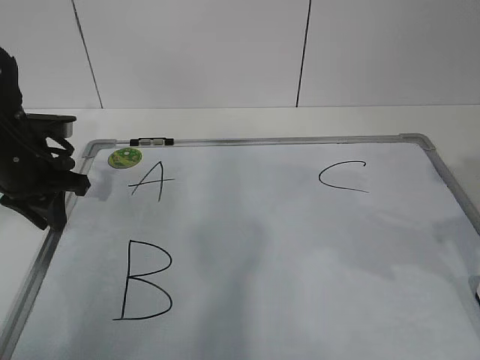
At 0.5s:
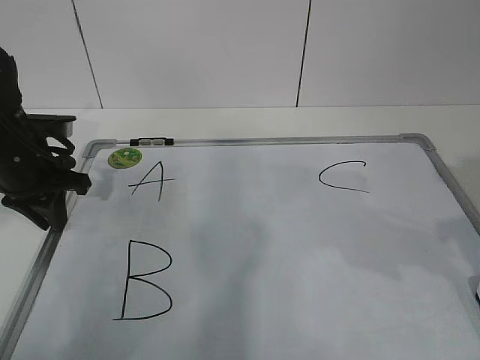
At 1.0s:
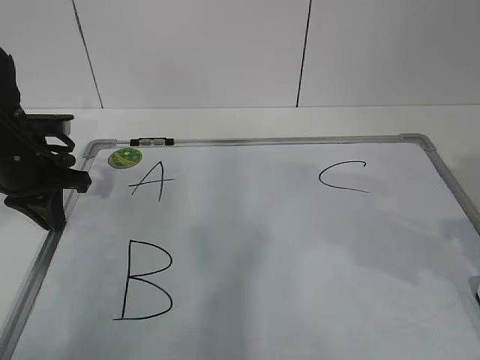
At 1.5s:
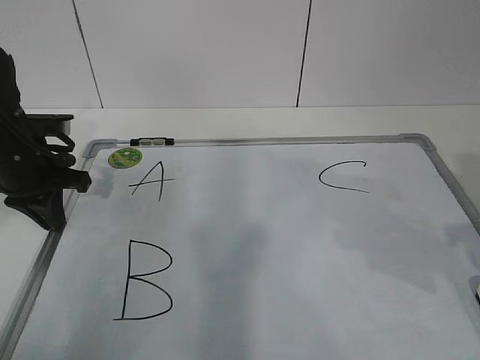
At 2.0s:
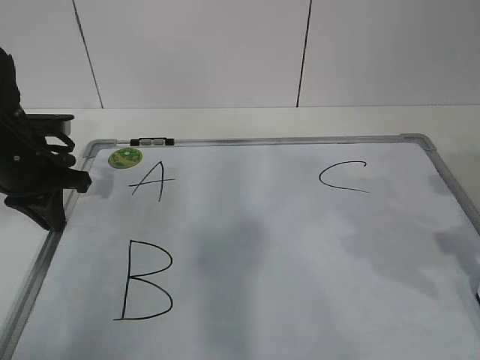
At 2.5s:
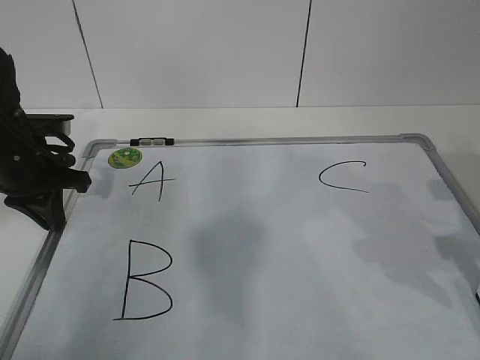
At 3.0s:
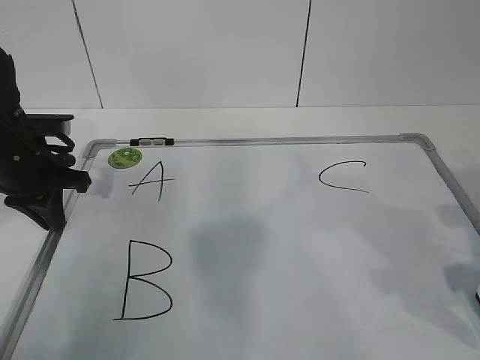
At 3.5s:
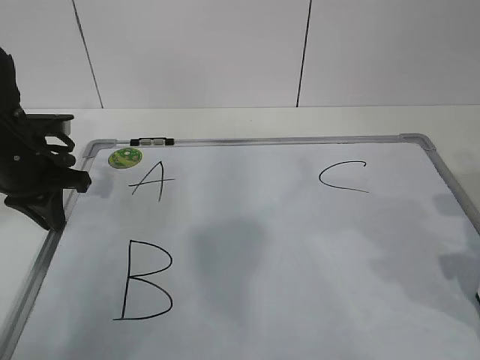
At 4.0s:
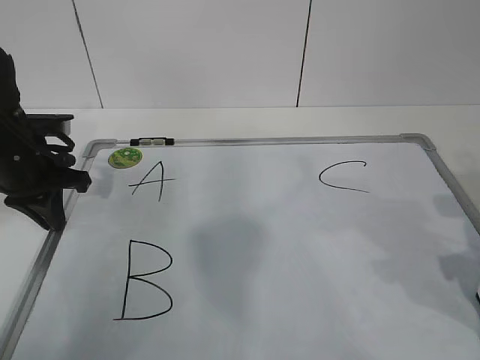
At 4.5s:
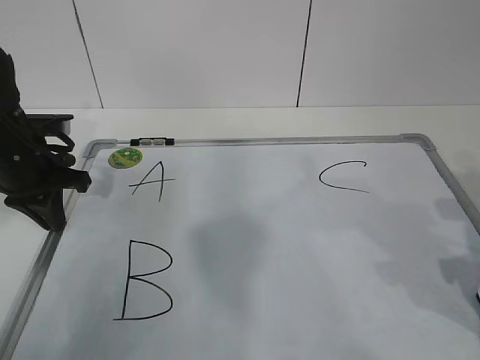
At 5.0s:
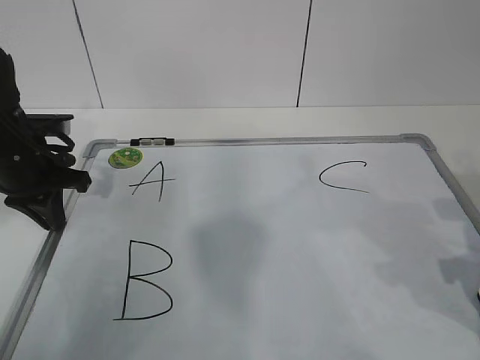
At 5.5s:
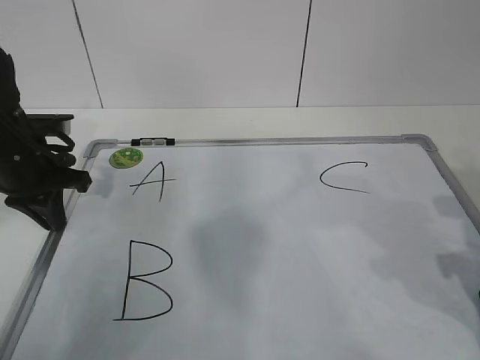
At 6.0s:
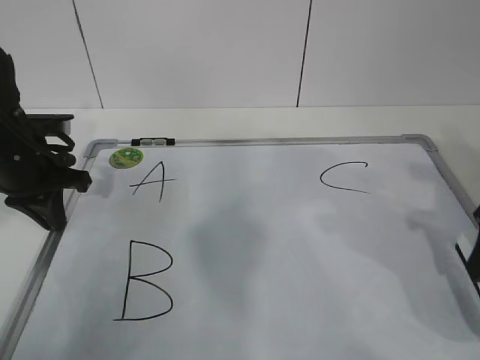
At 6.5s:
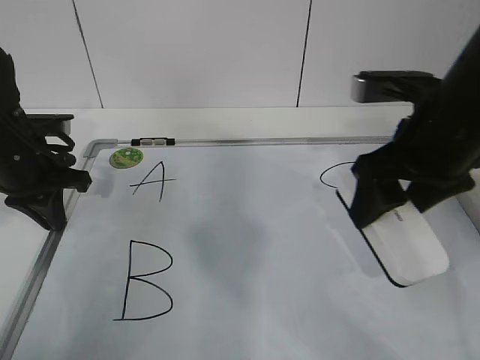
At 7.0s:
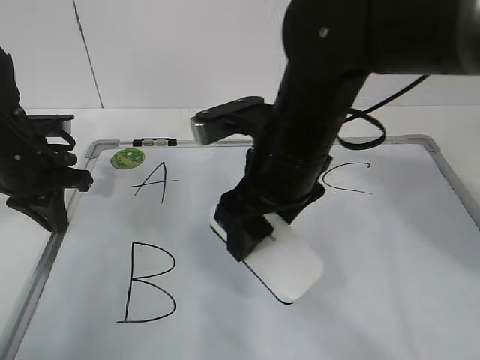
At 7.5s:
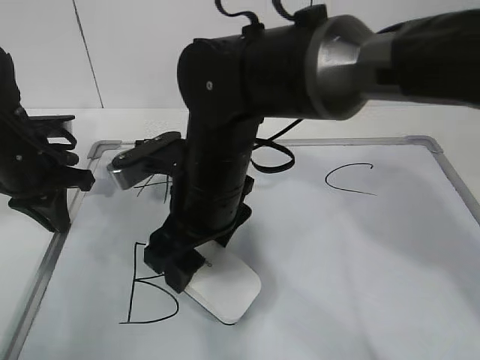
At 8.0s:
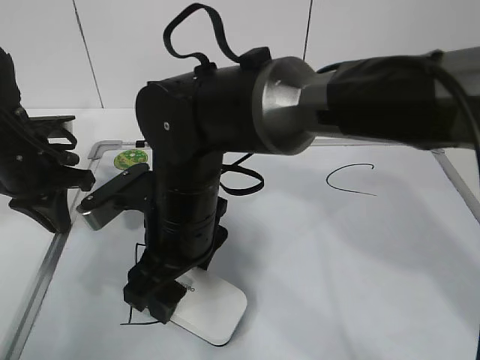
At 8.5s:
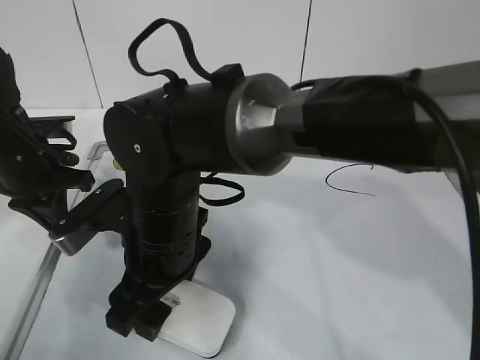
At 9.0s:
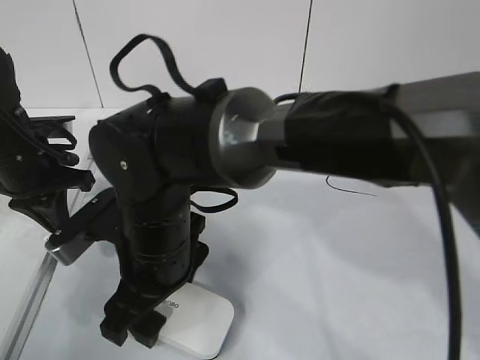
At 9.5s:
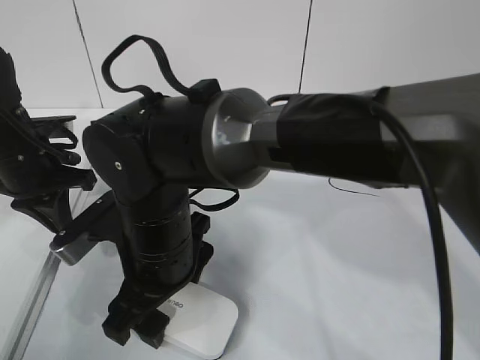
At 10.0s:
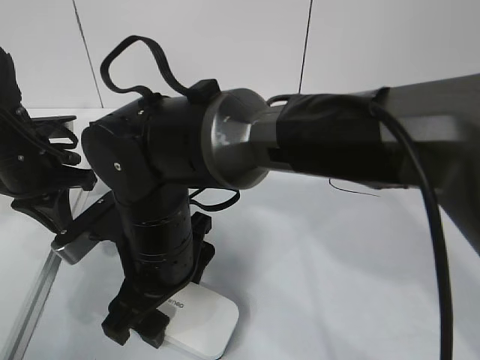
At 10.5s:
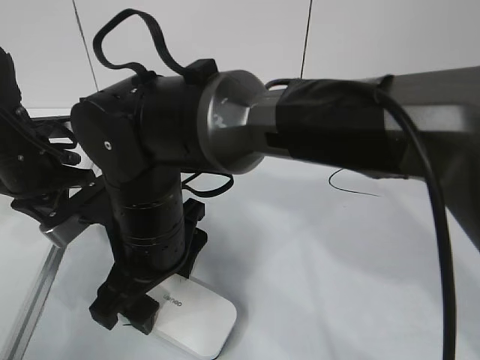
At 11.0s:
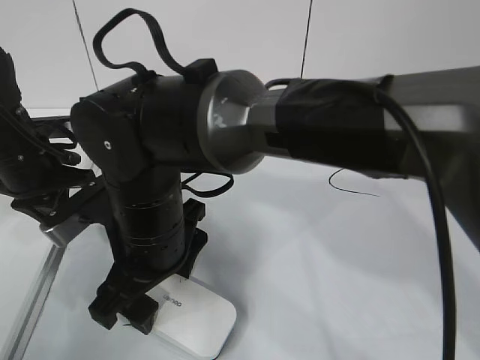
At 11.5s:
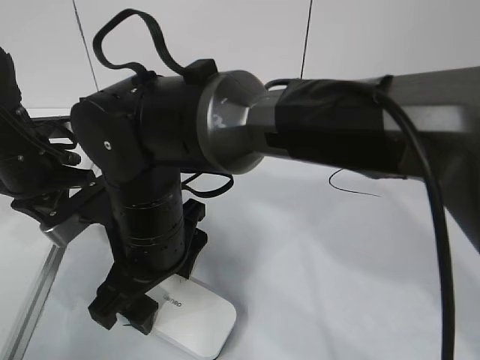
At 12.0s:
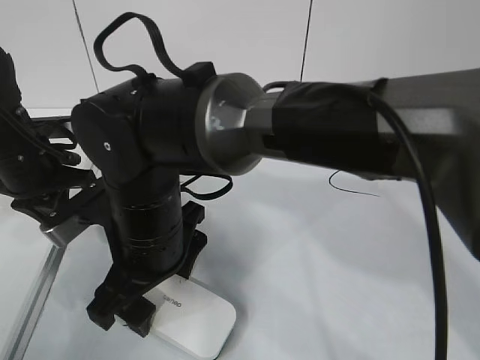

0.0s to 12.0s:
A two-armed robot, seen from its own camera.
Task of the whole recording: pick up the eraser on the blackboard and erase the letter "B".
Step, 0.5s to 3.5s: Grab the eraser with your right hand.
0.0s to 2.0s: The left gripper closes.
2.0s to 4.0s: The right gripper travels downward by about 5 cm.
4.0s to 6.0s: The right gripper closes its fingers.
6.0s to 8.0s: The right gripper shifts some 35 cm to the left.
8.0s to 10.0s: The right gripper opens its fingers.
10.0s to 12.0s: The grippers move only a little.

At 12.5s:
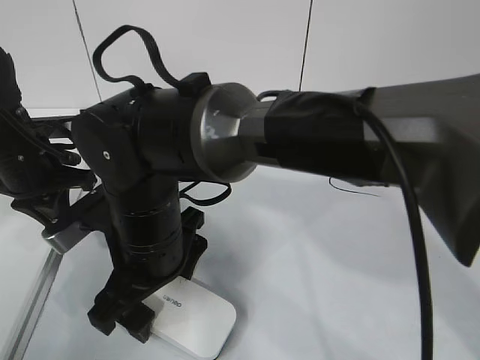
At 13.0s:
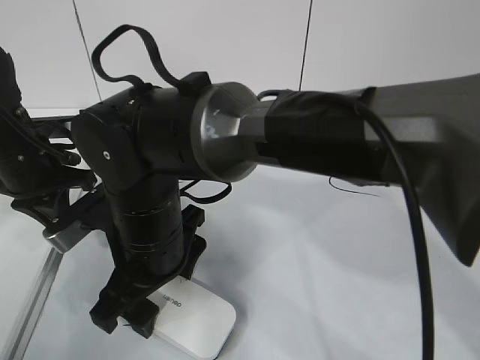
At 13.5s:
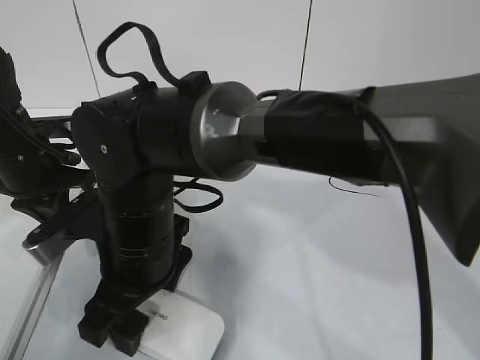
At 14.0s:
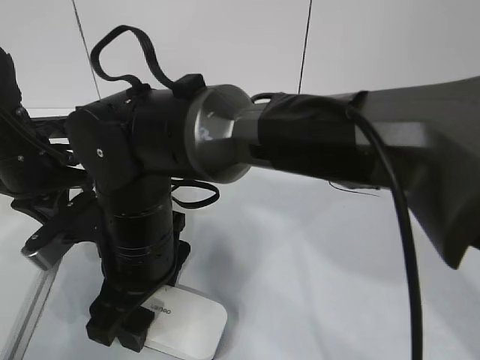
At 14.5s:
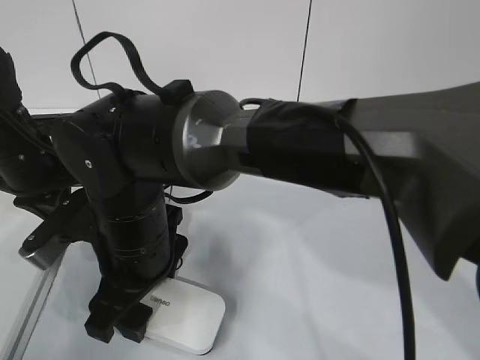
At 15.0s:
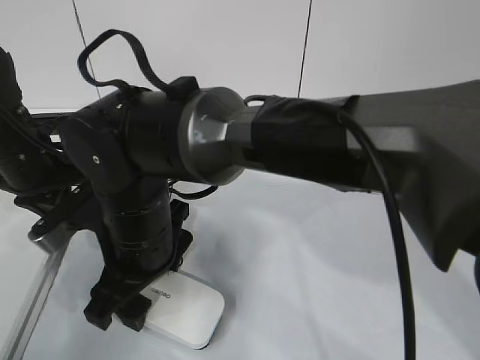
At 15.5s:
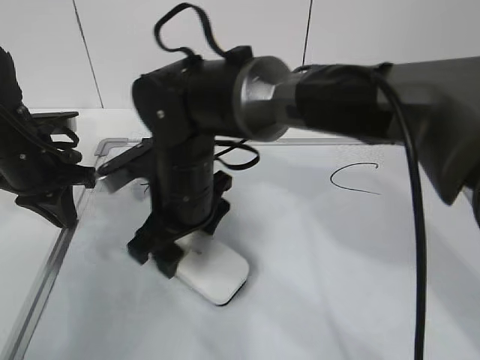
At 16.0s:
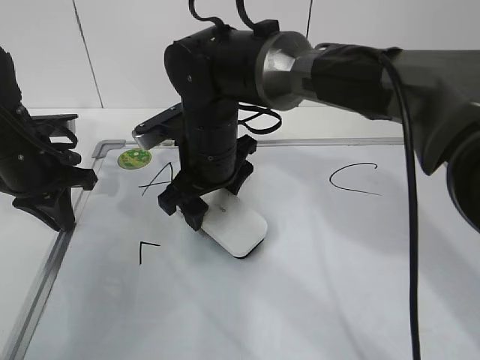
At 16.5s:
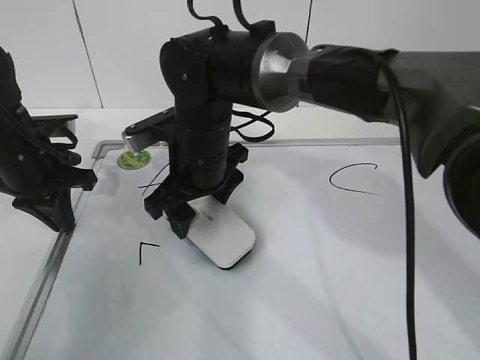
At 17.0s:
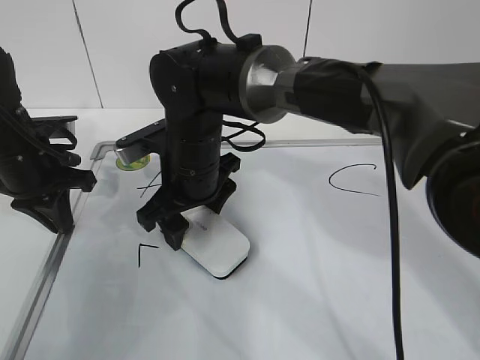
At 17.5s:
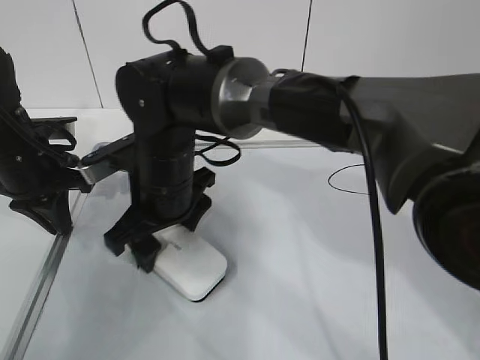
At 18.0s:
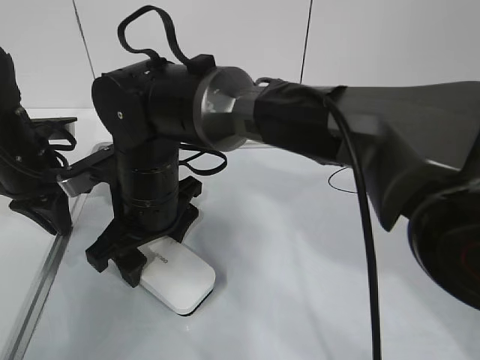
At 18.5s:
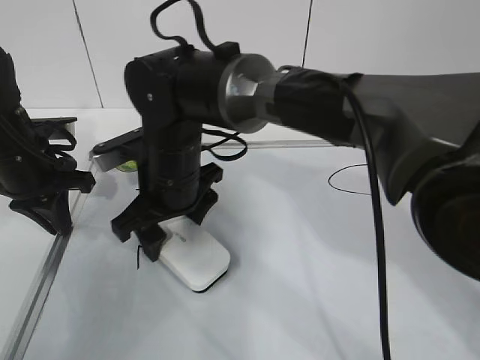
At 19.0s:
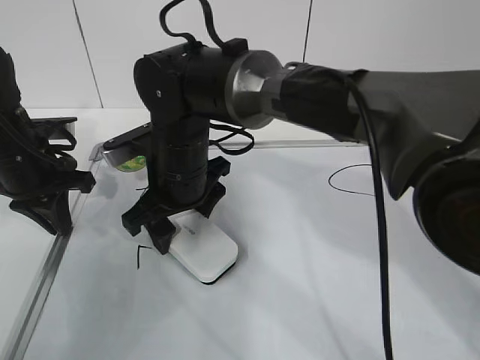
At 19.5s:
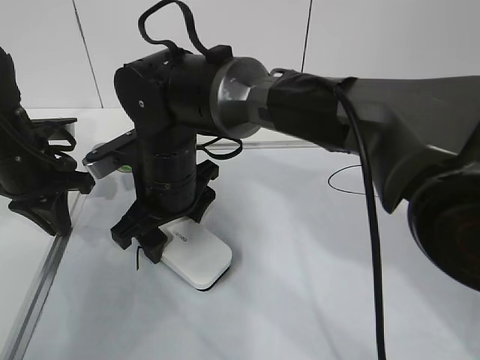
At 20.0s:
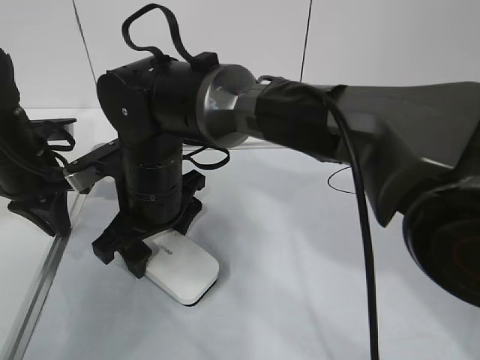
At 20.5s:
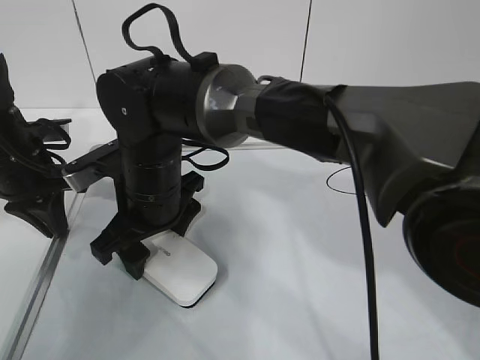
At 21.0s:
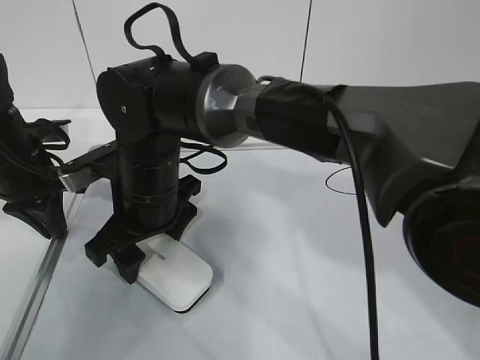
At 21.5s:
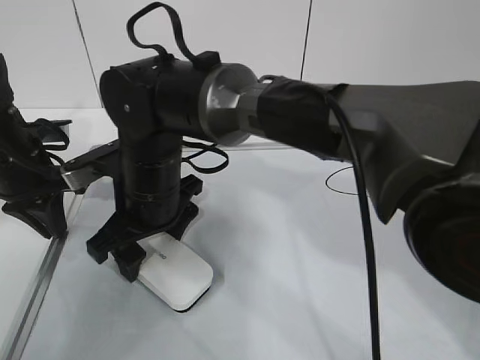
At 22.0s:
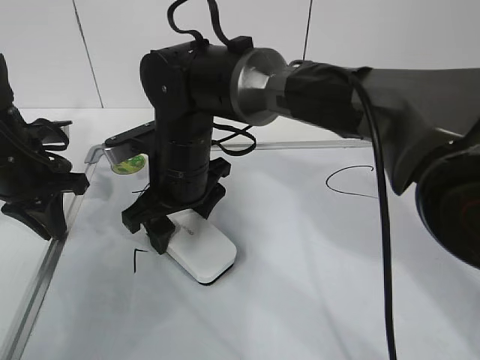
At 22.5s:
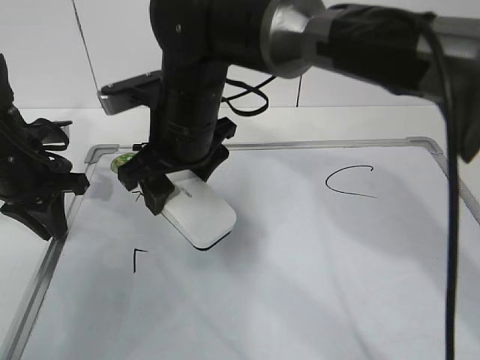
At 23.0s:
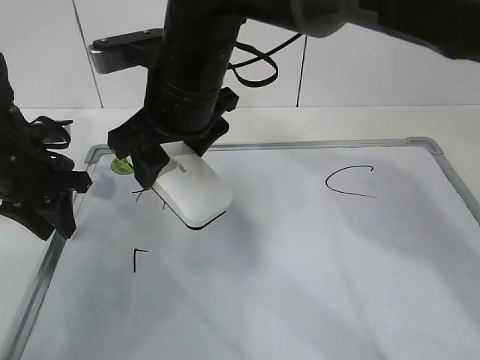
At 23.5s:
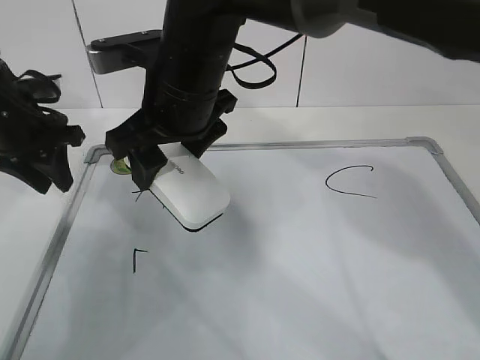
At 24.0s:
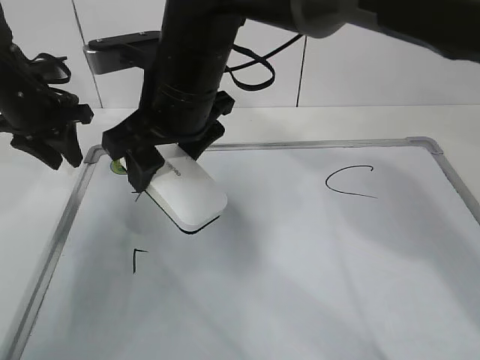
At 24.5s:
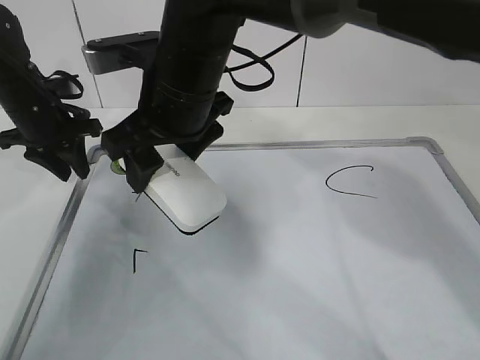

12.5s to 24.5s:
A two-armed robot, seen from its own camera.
Task of the whole recording: pick up the eraser on the blackboard and erase the letter "B".
Step, 12.5s to 24.0s: Erase the letter B with your right hand.
12.5s to 14.5s: The right gripper closes.
14.5s to 16.5s: The right gripper heads forward and to the right, covering about 10 cm.
20.5s to 22.5s: The right gripper moves upward, approximately 5 cm.
22.5s to 24.5s: The left gripper shifts approximately 10 cm forward, and opens.

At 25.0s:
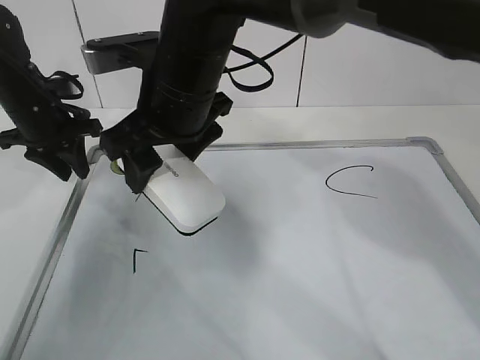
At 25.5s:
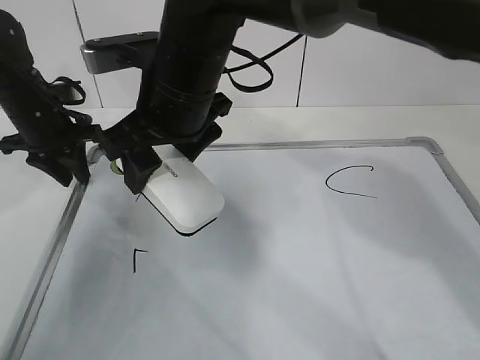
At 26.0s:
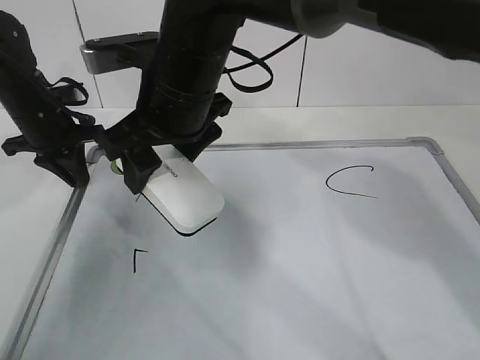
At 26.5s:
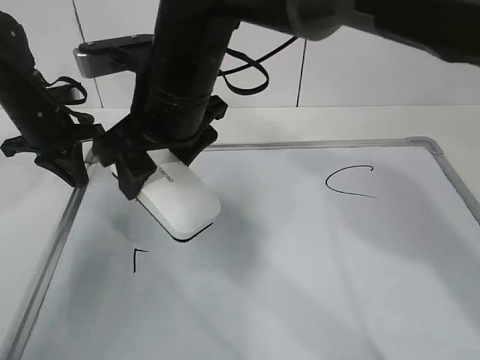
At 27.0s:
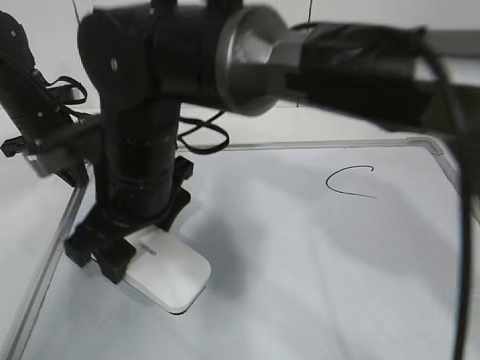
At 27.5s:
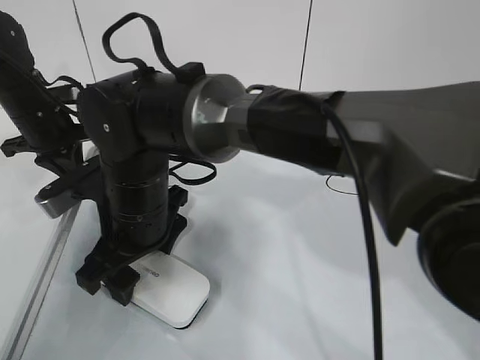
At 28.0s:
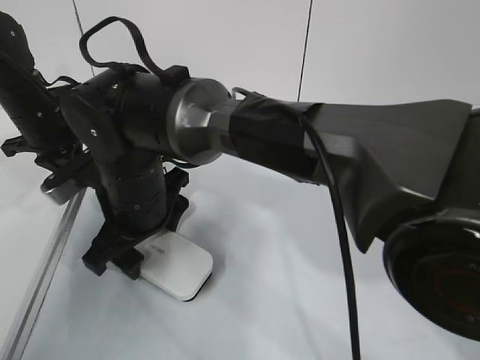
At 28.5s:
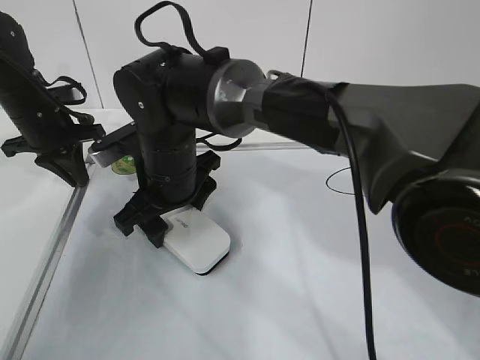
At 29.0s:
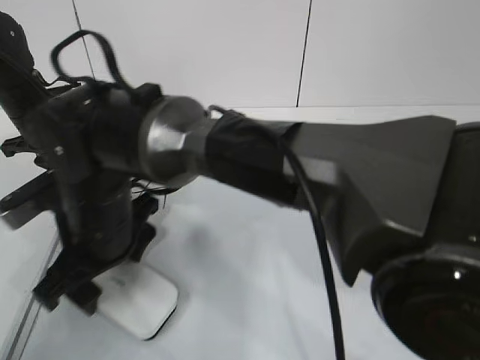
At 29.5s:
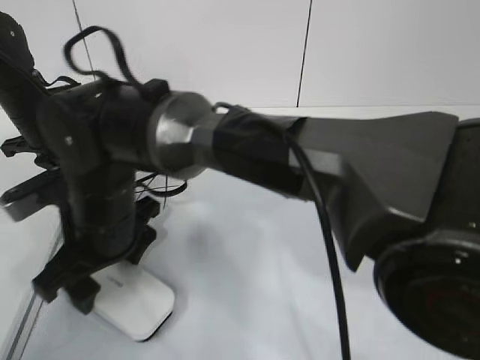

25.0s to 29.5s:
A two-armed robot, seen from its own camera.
Task of the whole recording: pick up the eraser on the blackboard and erase the letter "B".
Step, 25.0s to 26.5s: Put down the eraser with your right hand.
25.0s to 27.0s: The right gripper is displaced backward by some 5 cm; the left gripper closes up.
27.0s to 29.5s: The right gripper heads downward, covering roughly 5 cm.
